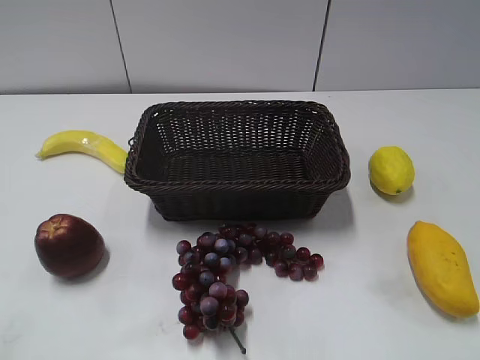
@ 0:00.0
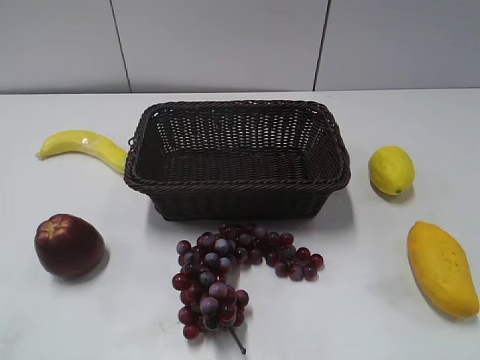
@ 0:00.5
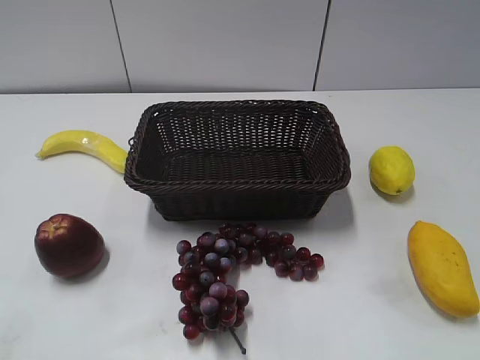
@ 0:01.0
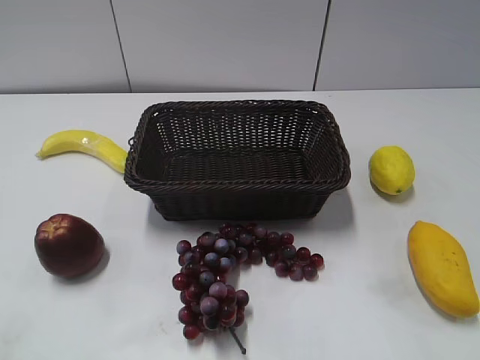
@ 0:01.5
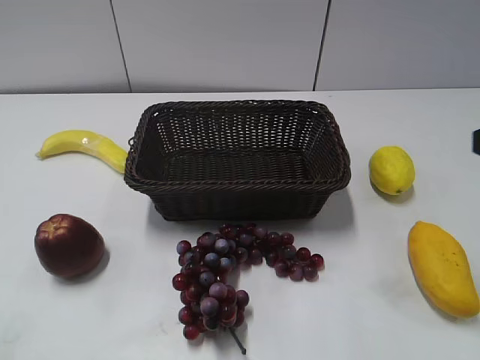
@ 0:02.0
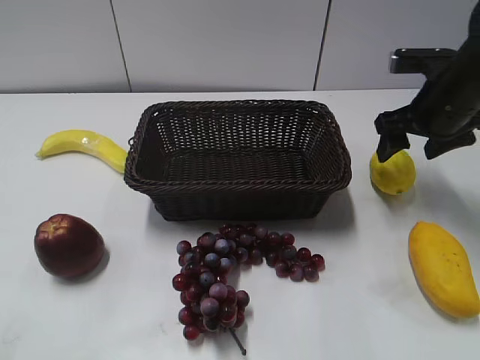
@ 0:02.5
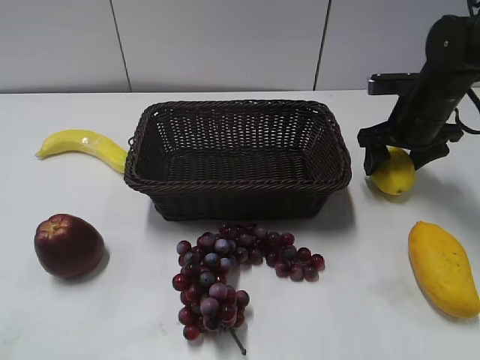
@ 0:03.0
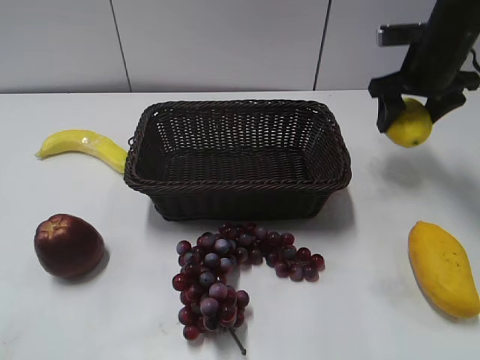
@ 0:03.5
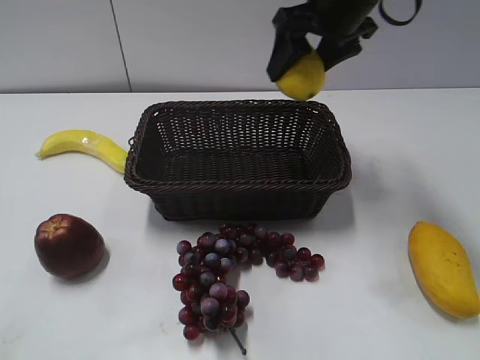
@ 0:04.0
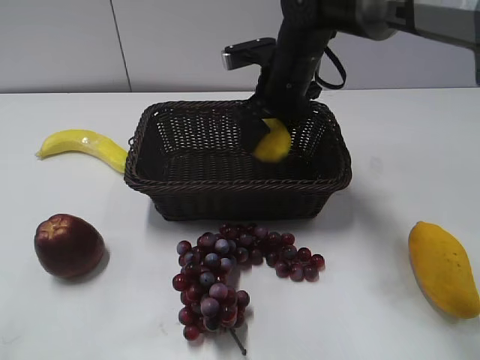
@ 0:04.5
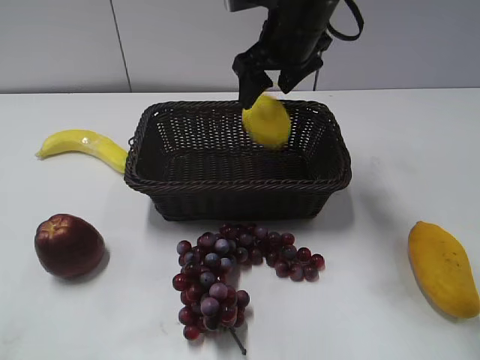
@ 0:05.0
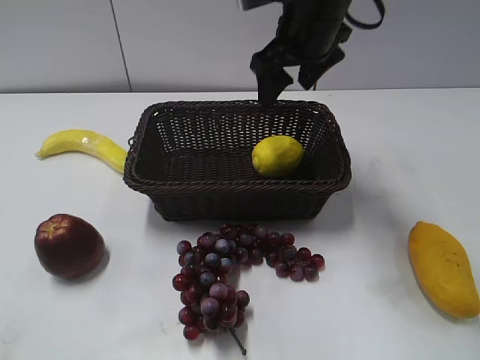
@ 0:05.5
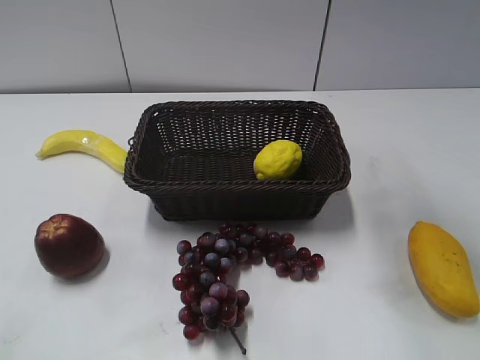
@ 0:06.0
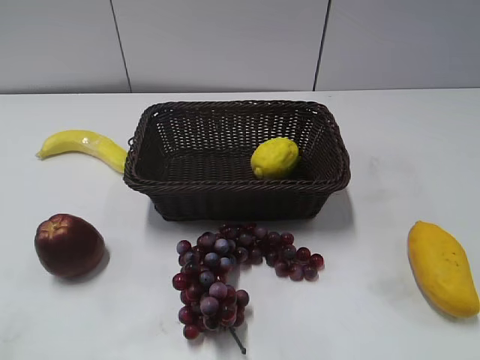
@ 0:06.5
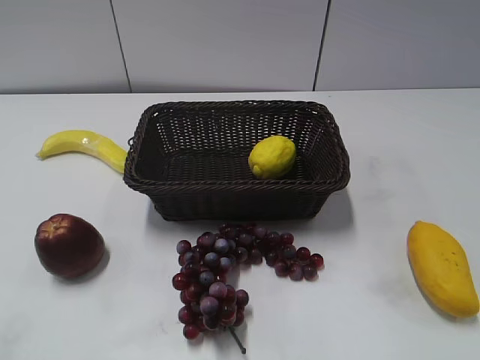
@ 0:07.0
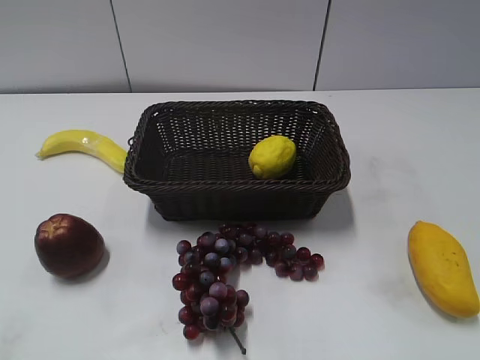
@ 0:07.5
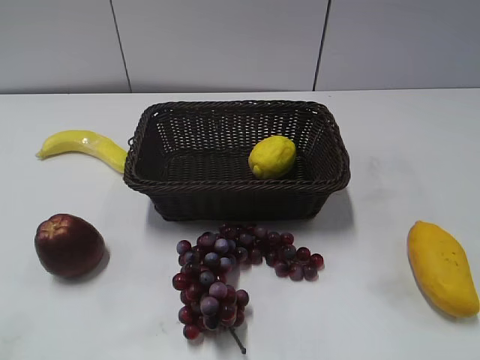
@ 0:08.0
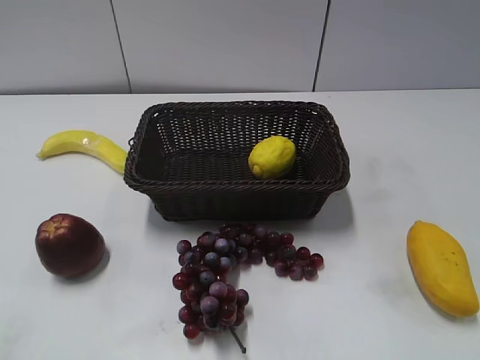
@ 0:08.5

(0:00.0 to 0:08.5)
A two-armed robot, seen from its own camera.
Step, 0:02.0 - 0:03.0: Grasp the lemon with right gripper.
Step, 0:03.5 - 0:05.0: Place the lemon in the basket with right gripper.
0:02.0 - 0:04.0: The right gripper travels forward and to the left by approximately 30 cm.
0:04.0 - 0:06.5: The right gripper goes roughly 35 cm backward and to the right.
0:06.5 - 0:08.5: The right gripper heads backward and downward, covering some 15 cm.
